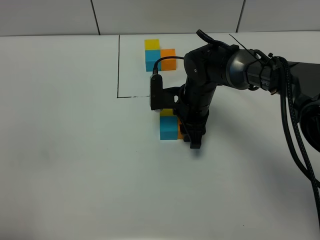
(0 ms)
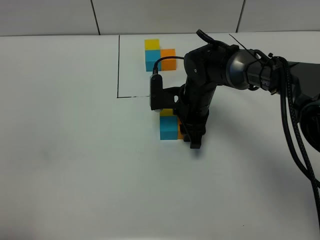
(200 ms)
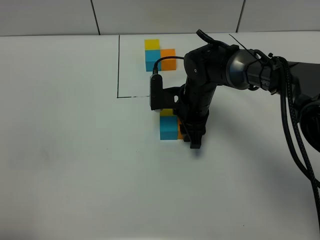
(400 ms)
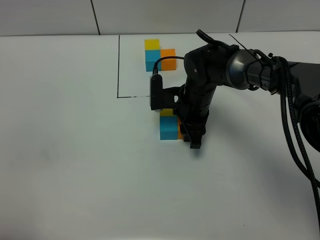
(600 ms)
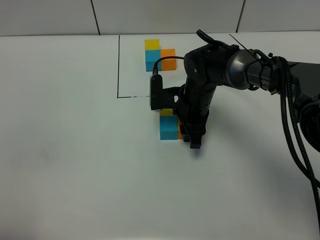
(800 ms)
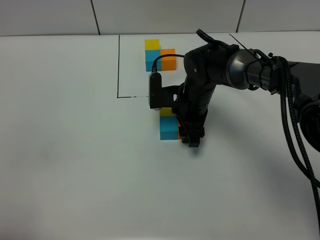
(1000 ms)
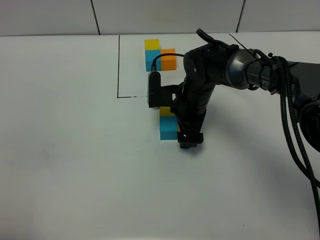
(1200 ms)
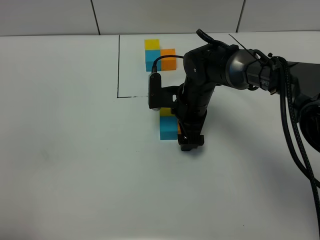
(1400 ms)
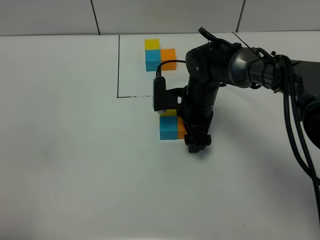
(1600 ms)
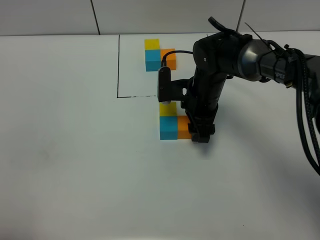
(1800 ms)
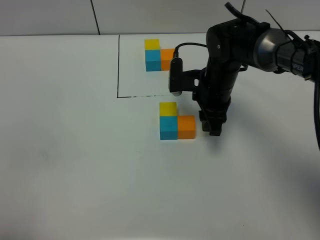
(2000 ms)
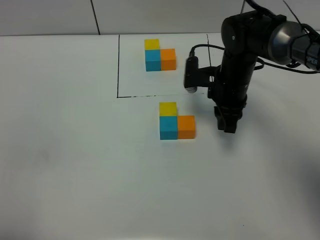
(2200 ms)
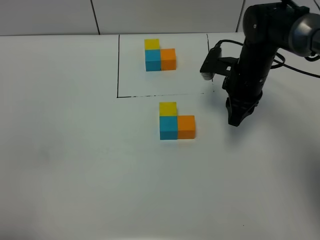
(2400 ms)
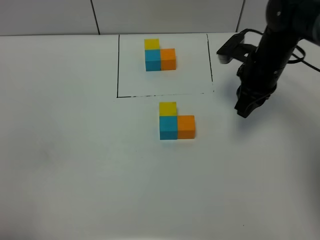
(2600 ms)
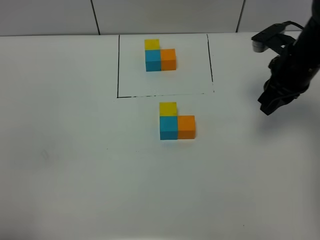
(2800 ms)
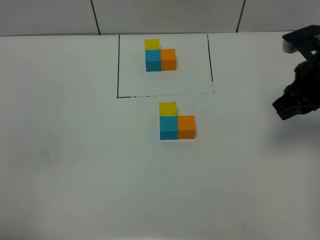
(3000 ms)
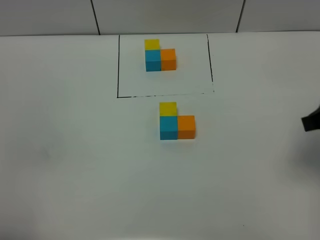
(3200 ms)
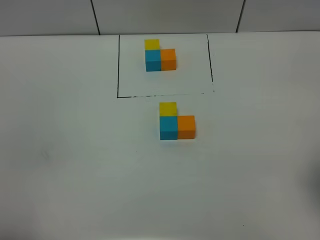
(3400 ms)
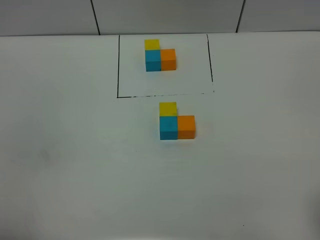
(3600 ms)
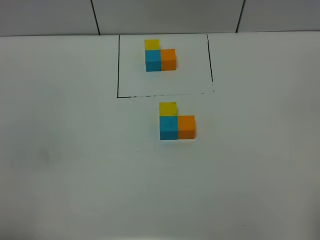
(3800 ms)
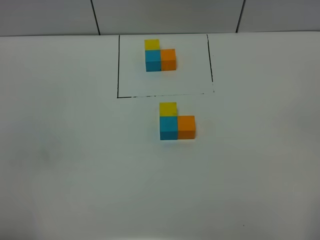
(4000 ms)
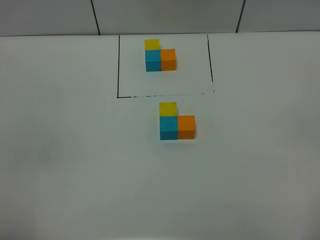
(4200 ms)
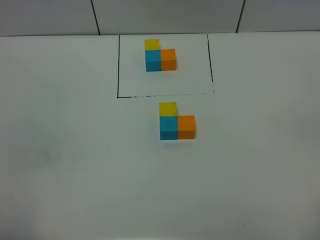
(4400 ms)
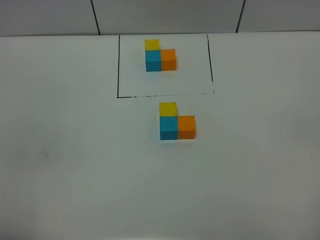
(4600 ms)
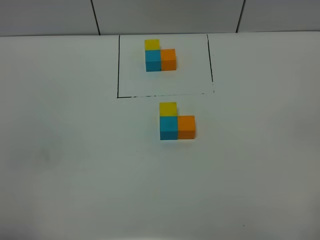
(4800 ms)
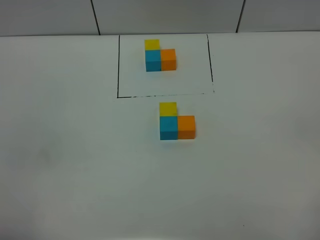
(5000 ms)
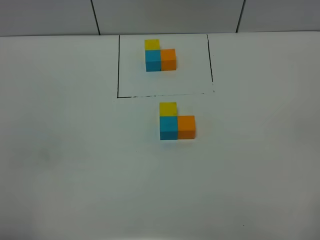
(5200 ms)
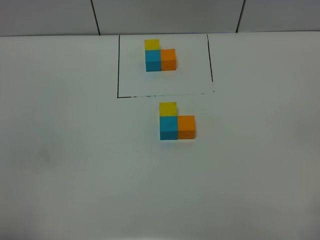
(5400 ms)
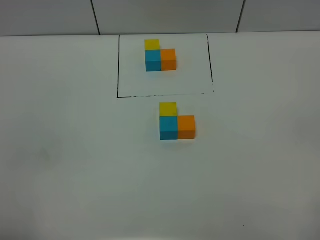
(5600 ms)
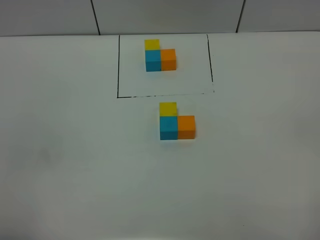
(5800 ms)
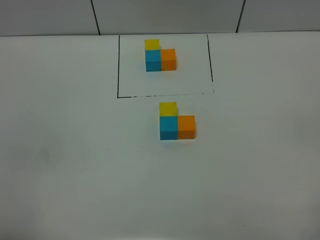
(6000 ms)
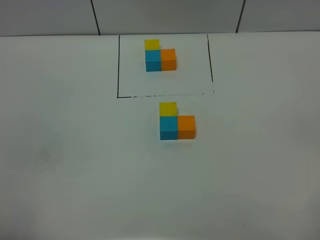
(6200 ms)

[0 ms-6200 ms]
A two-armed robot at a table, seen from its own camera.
Task of the whole recording: According to the building block template in front, assemble the scattered blocks together.
0 ms to 1600 ms: The right gripper opens up.
1600 ms to 3200 ms: The right gripper goes roughly 30 cm to the right, backward and upward, and closes.
3200 ms to 4600 ms: The right gripper moves backward, some 20 cm, and opens.
4600 ms to 6200 ms: Both grippers stay about where they are.

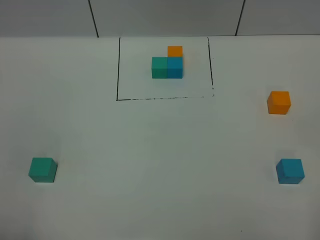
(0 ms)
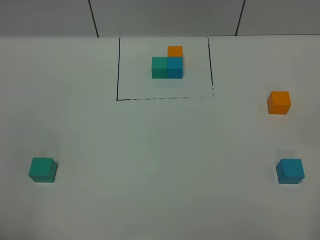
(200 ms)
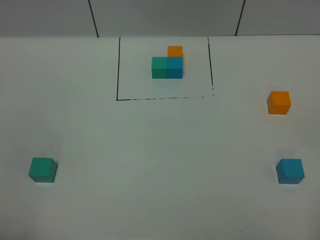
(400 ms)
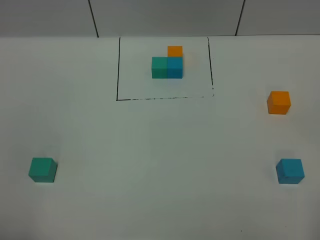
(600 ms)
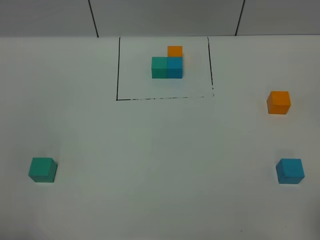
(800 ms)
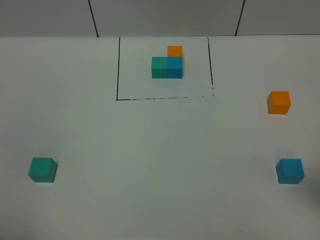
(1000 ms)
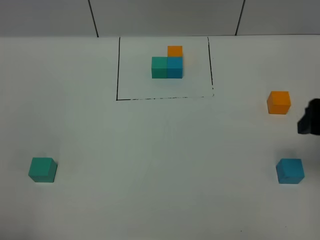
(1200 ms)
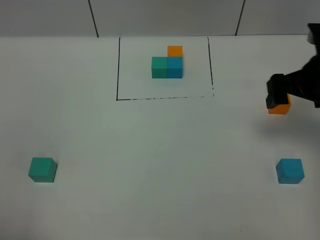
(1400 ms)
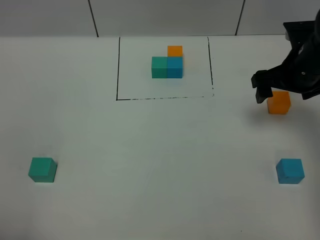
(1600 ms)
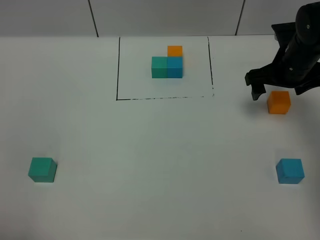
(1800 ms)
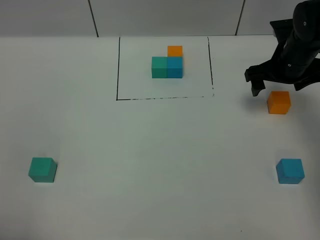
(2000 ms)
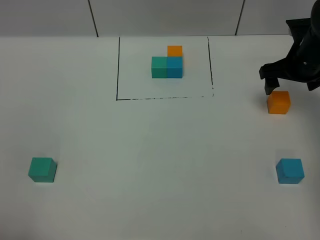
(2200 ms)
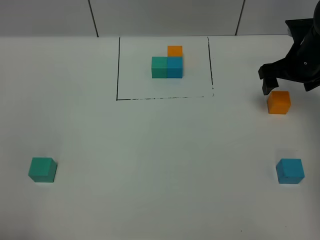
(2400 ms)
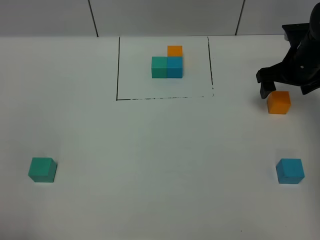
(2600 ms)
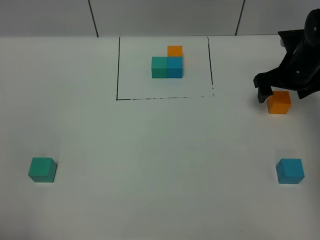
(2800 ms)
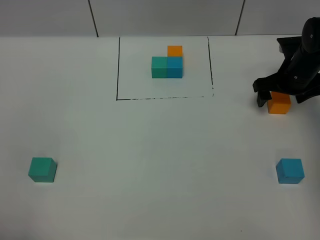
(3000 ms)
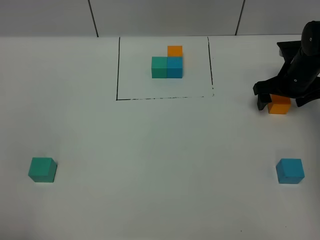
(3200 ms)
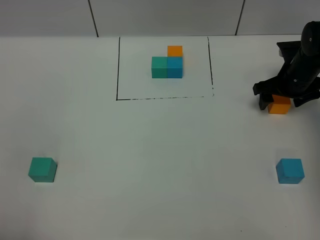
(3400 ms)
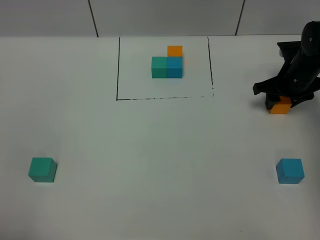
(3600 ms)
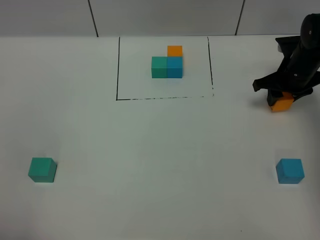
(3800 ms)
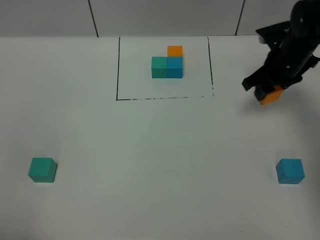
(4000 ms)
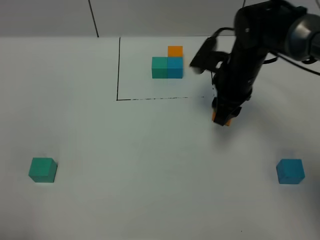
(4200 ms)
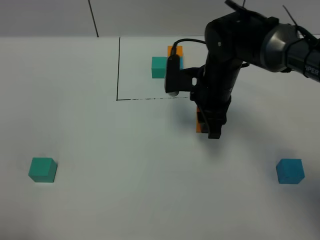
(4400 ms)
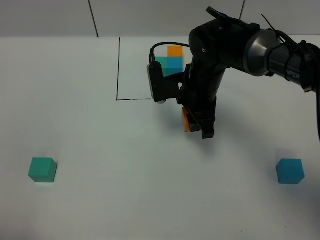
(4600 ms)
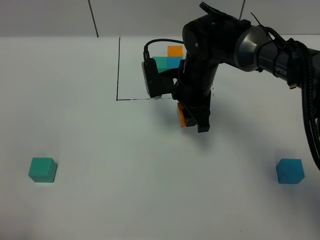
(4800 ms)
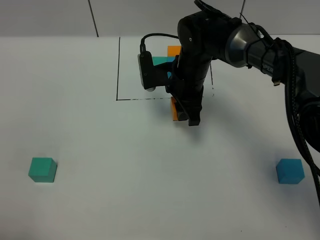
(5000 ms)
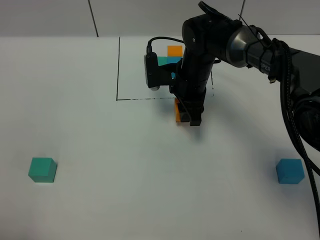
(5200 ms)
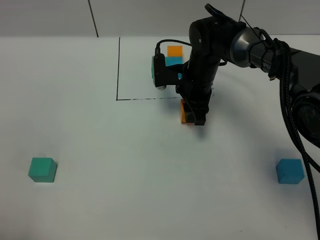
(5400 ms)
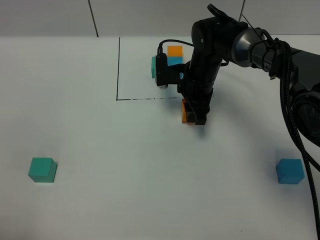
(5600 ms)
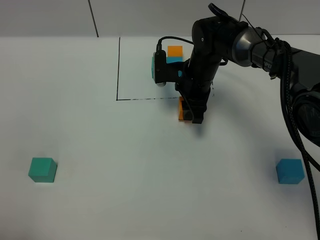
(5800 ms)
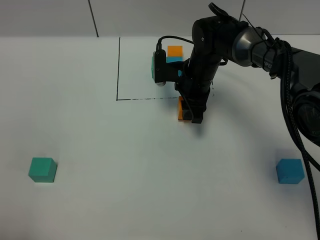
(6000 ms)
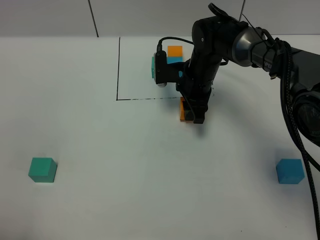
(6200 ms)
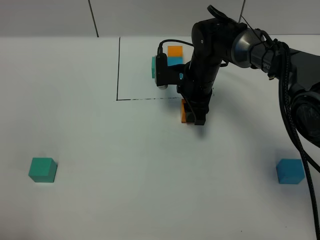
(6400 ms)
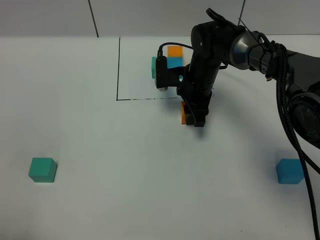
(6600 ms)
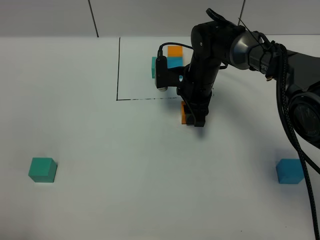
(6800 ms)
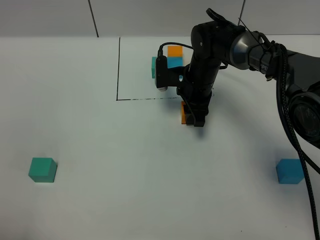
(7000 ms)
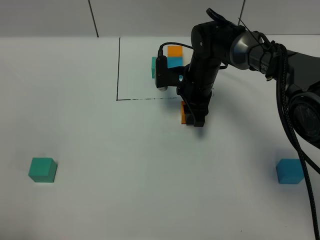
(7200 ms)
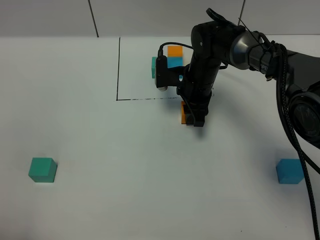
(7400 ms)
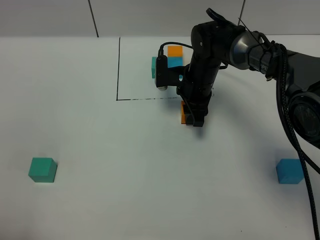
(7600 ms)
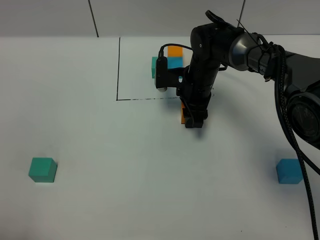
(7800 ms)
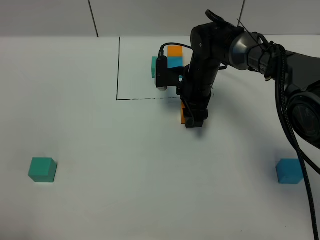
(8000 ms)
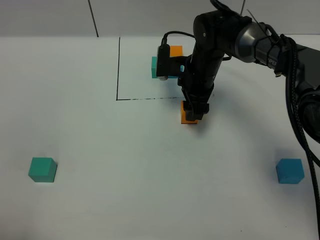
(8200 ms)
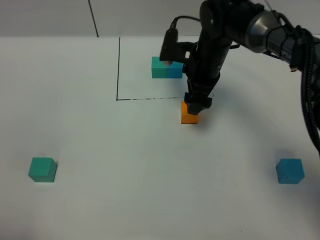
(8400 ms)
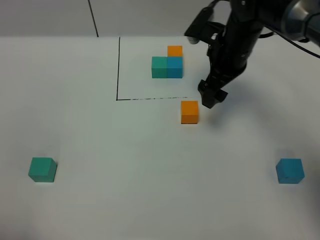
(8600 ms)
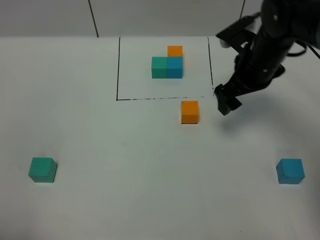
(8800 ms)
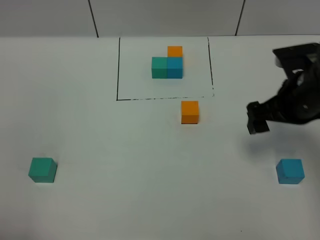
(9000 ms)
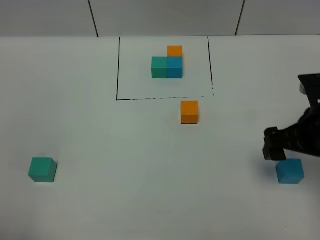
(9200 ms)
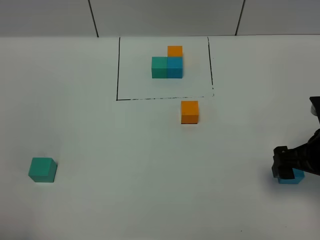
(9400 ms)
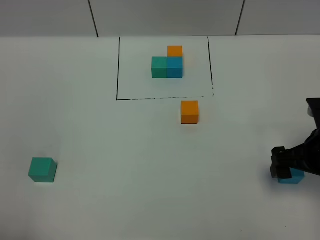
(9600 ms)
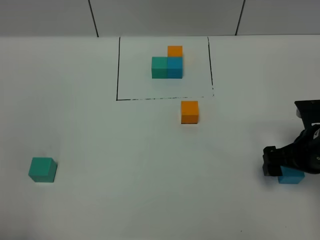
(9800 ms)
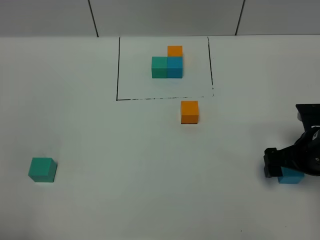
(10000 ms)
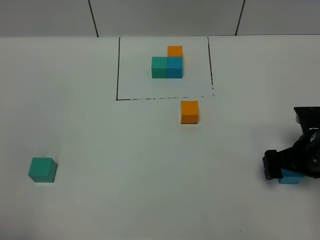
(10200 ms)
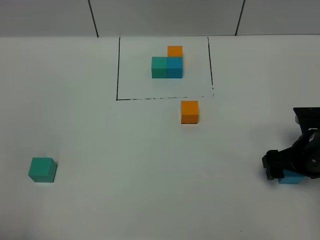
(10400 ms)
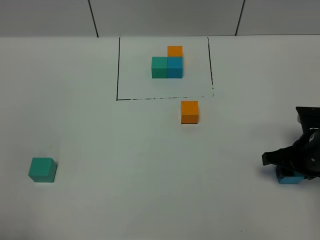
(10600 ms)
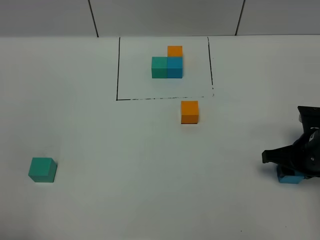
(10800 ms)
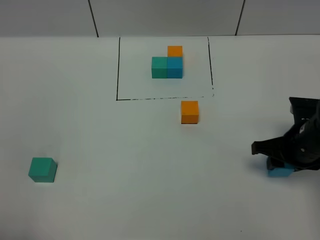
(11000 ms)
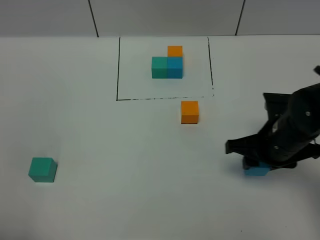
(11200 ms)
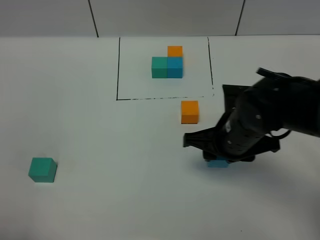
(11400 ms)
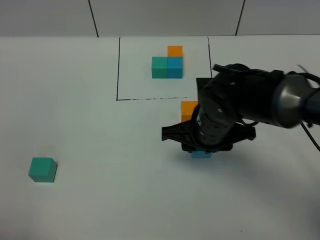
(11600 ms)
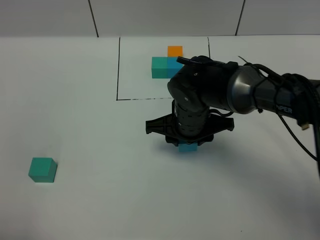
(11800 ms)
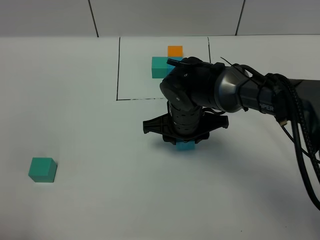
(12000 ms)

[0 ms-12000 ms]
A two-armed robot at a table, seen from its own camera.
Task of the whole recording: According to the building block template in front, assemble the scattered blocks together.
Step, 0 ms to 8000 ms: Put the red build block in the center of the table.
0 ms to 1600 ms: The right gripper goes roughly 35 cm forward.
1600 ms to 3000 ms: The right gripper goes approximately 10 cm downward and forward.
3000 ms to 4400 ms: The right gripper goes some 20 cm to the left and backward, and closes up.
4400 ms to 6000 ms: The right gripper goes about 10 cm forward and downward.
6000 ms to 7600 ms: The two grippers keep their place.
7600 ms to 9000 ms: The right gripper shifts roughly 25 cm to the right, backward and upward, and opens.
9000 ms to 10400 ms: The right gripper shifts approximately 10 cm downward.
10400 ms to 12000 ms: The right gripper moves to the left, about 25 cm, and closes.

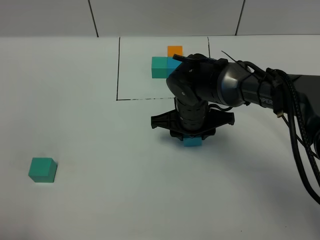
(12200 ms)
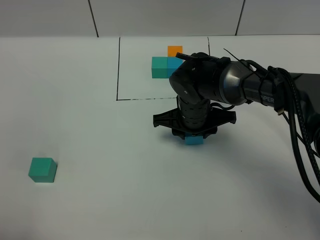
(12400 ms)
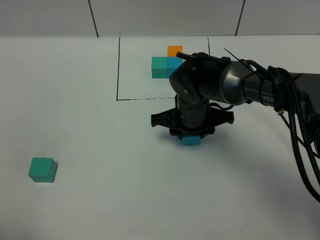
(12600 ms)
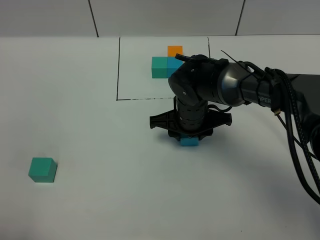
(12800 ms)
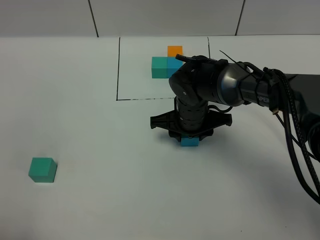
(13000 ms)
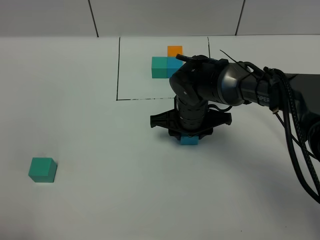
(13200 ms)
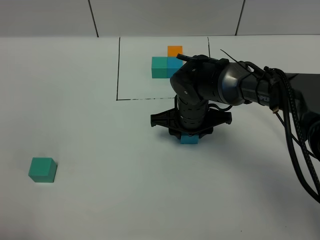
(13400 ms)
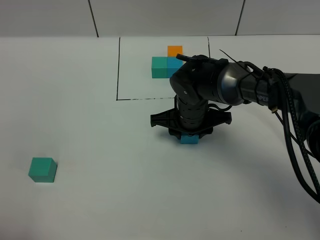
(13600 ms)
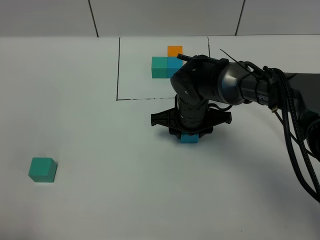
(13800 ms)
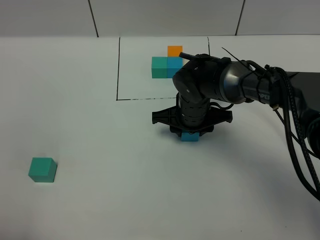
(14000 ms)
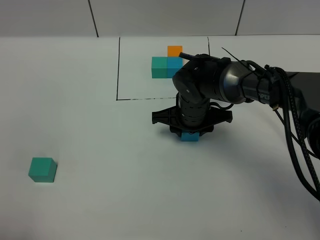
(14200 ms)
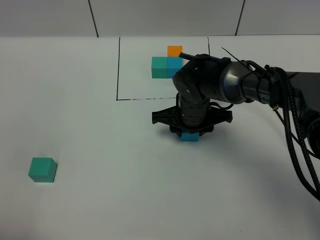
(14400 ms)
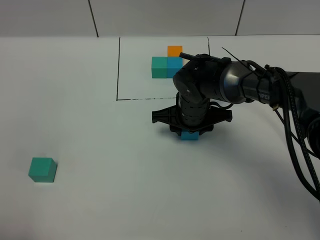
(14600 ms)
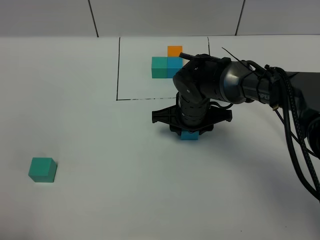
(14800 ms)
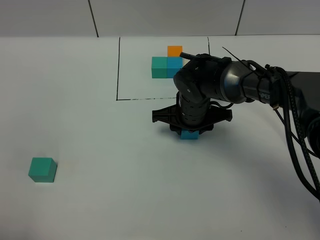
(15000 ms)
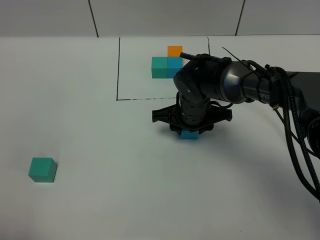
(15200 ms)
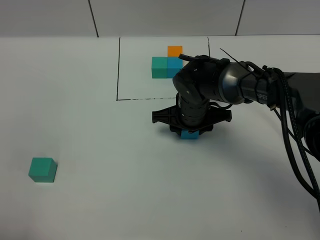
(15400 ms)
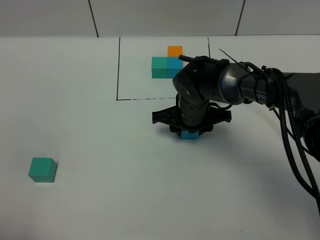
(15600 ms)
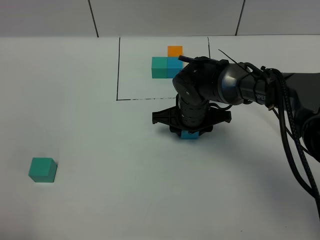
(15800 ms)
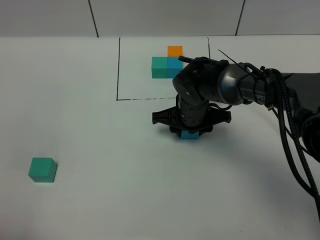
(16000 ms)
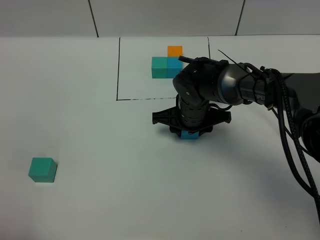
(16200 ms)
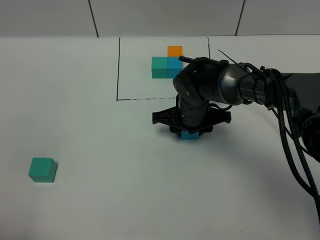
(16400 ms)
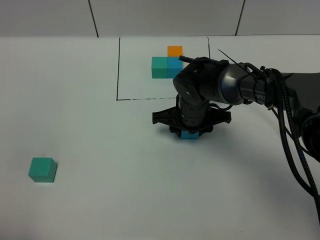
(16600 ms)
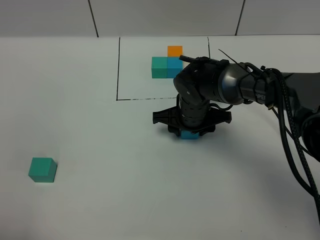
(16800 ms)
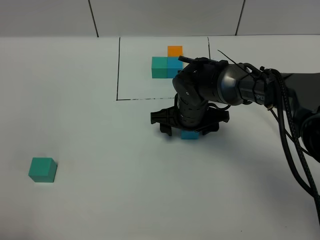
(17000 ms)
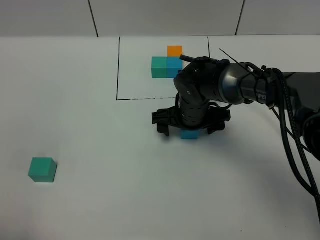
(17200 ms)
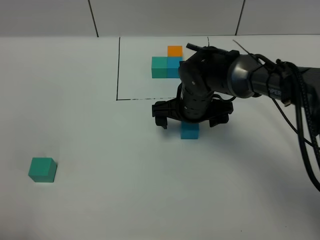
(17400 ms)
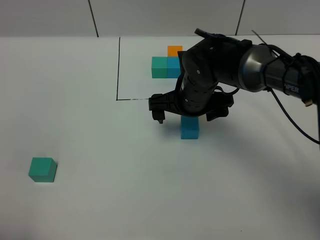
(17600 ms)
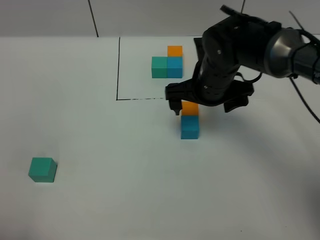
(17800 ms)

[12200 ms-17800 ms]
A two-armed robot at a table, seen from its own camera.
Task of the whole recording: According to the building block template in front, assemble the scattered blocks together.
Step, 12200 ms to 16800 ms: Put the blue build block on the behind of the orange build block.
12200 ms to 13600 ms: The grippers move only a little.
13600 ms to 15000 ms: Neither gripper changes place.
15000 ms to 16400 ms: Both grippers stay put.
16400 ms to 17800 ms: The right gripper travels upward by some 10 cm, and opens.
